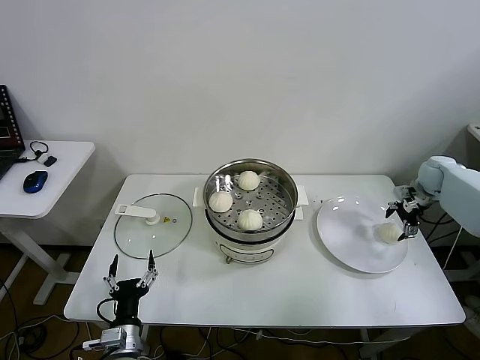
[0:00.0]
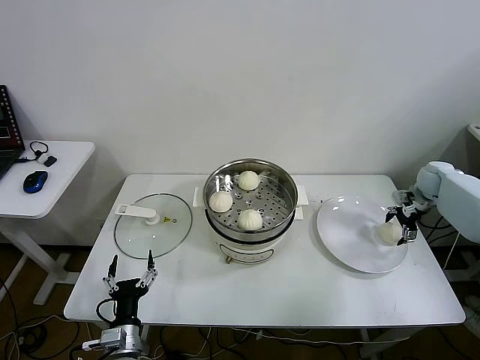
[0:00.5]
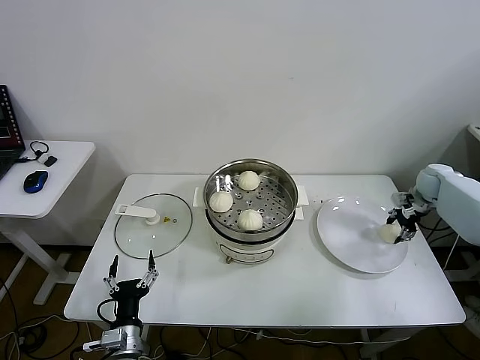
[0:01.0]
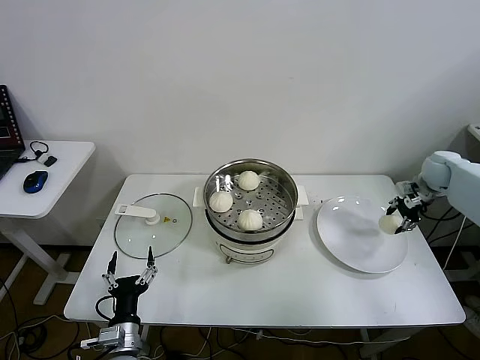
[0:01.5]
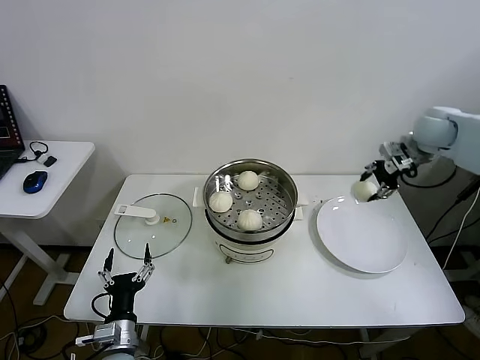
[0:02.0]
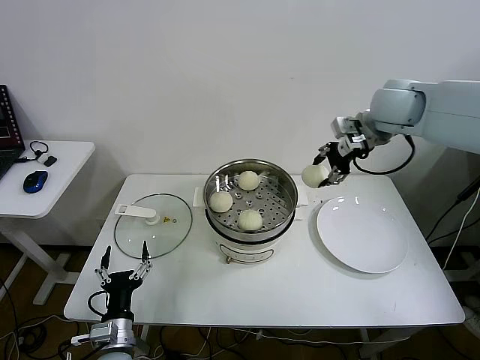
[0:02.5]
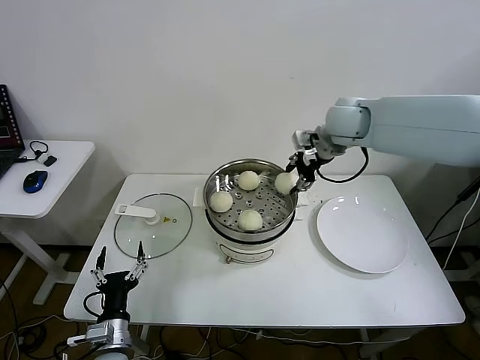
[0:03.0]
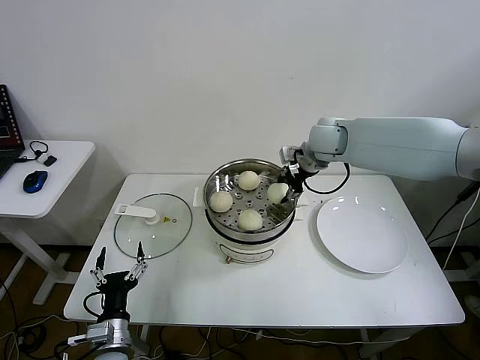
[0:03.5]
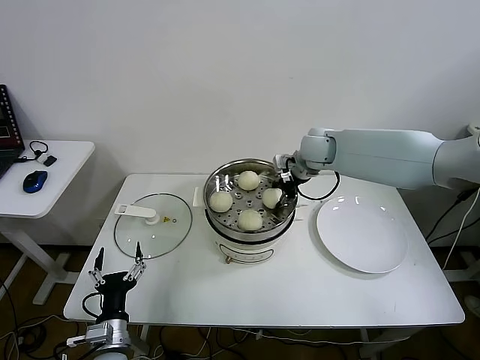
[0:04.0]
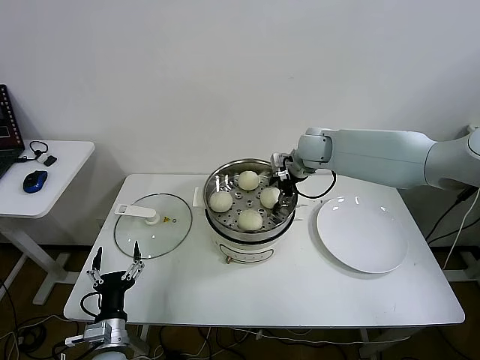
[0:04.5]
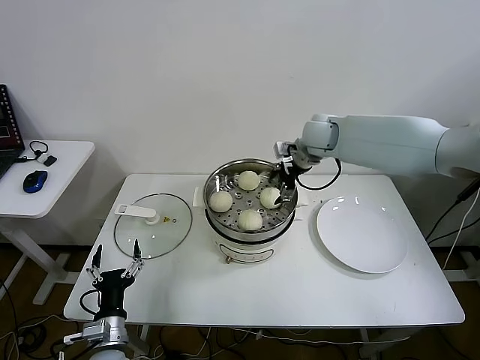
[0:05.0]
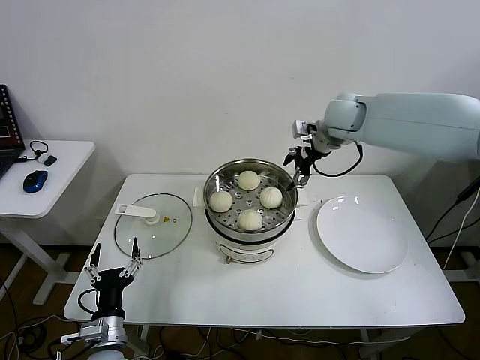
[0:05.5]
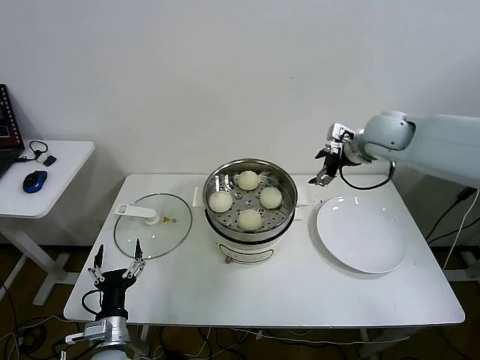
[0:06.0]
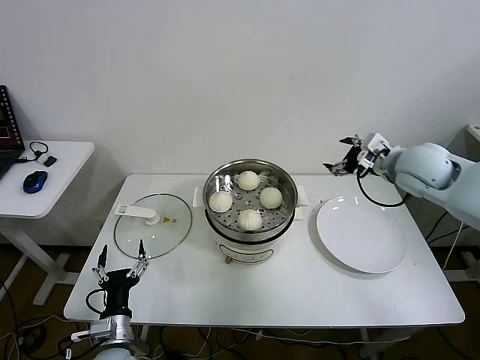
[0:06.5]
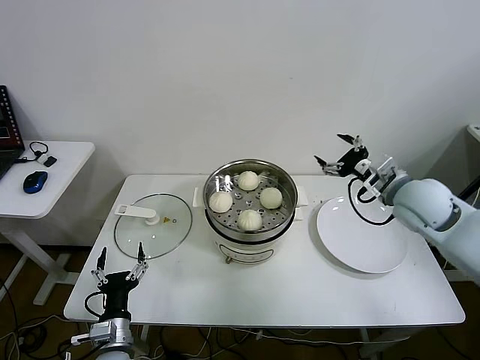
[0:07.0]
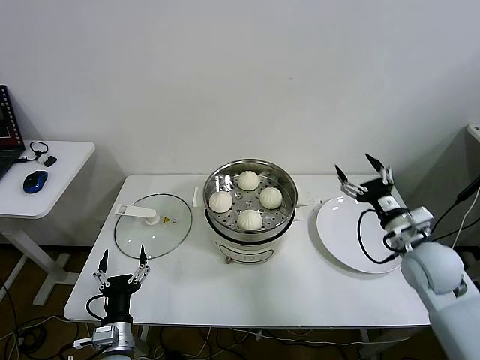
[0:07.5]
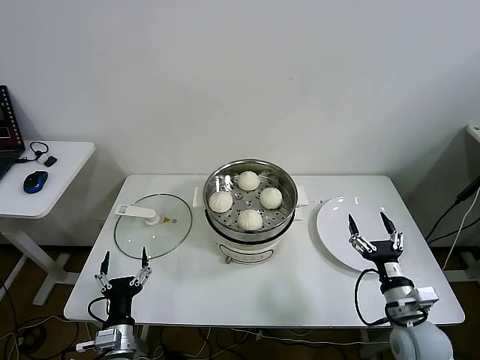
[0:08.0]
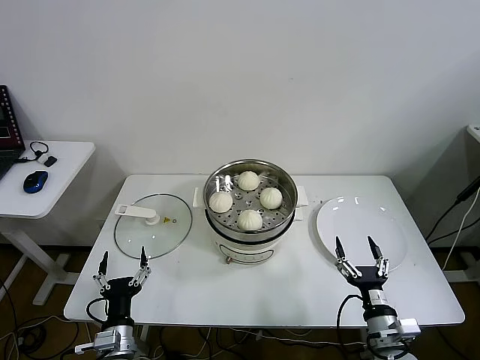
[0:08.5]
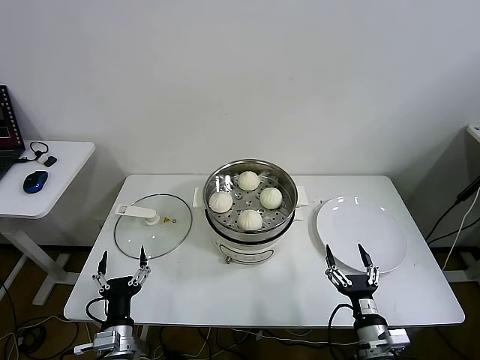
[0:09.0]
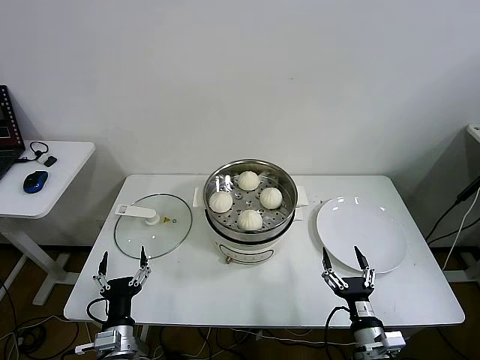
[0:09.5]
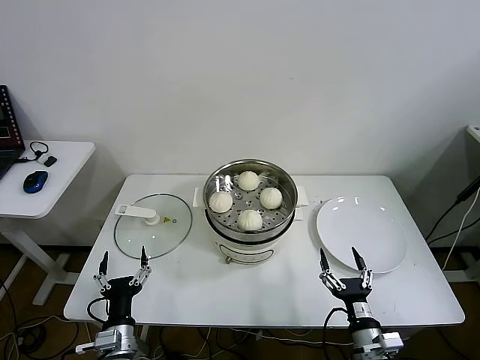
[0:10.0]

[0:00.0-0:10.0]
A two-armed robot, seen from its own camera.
Step, 0:01.0 to 0:04.5: Place the baozi on the steamer with right gripper.
0:00.0 to 0:02.0: The right gripper heads upward and to the left, covering approximately 20 cm, and closes.
0:02.0 to 0:04.0: The right gripper heads to the left, covering about 25 cm.
0:04.0 to 0:06.0: The right gripper shifts some 15 cm to the right and upward, and opens its fingers.
0:06.0 to 0:08.0: The right gripper goes roughly 40 cm backward and downward.
0:08.0 to 0:10.0: The right gripper shifts some 10 cm to the left, backward and downward.

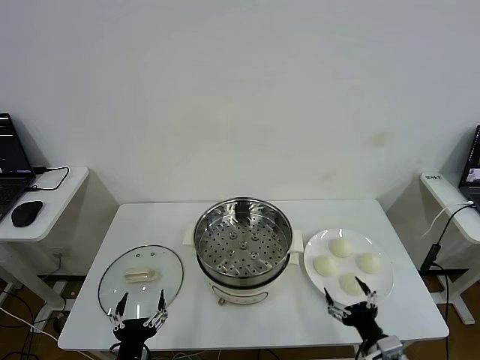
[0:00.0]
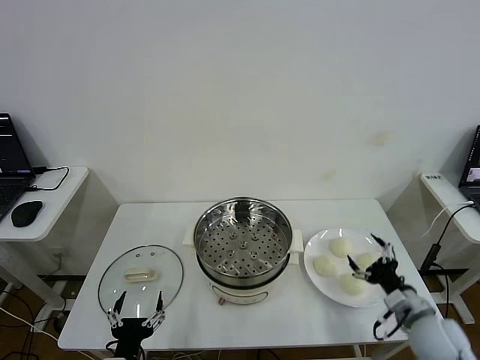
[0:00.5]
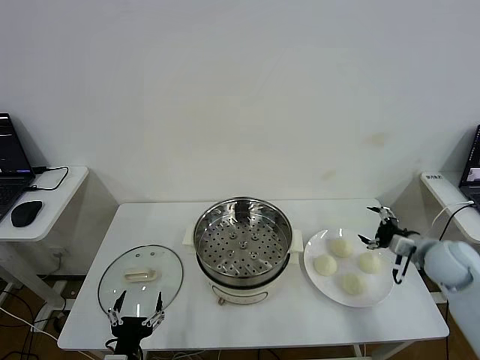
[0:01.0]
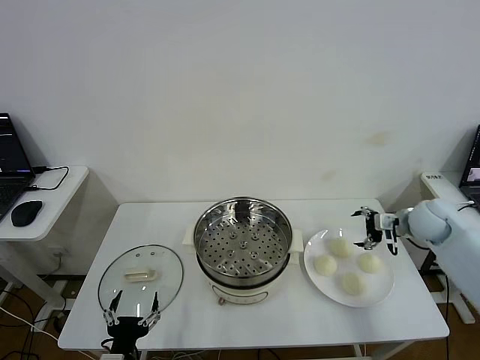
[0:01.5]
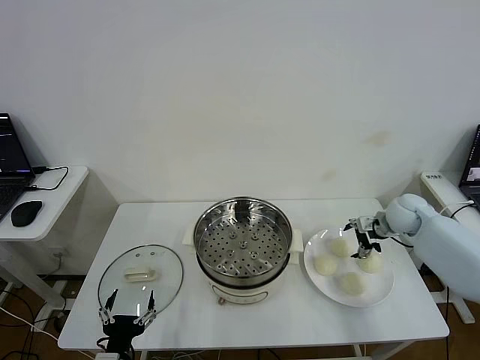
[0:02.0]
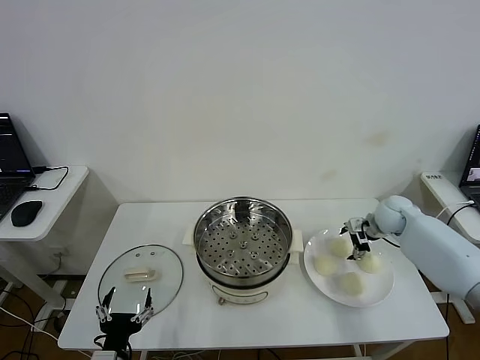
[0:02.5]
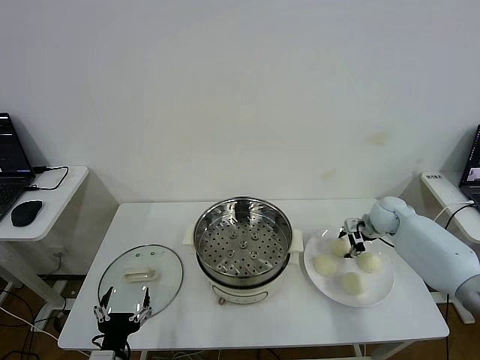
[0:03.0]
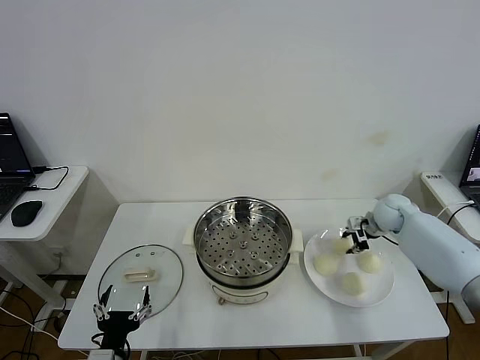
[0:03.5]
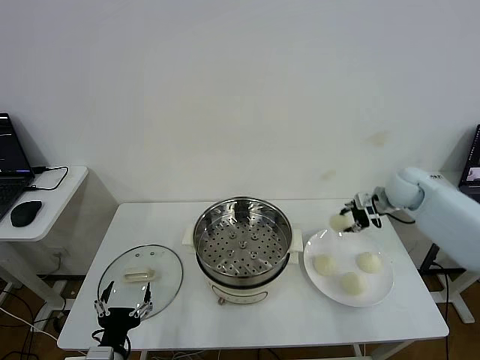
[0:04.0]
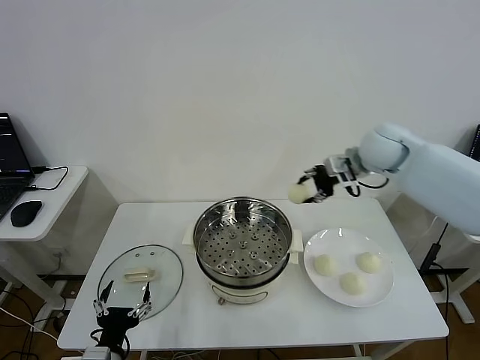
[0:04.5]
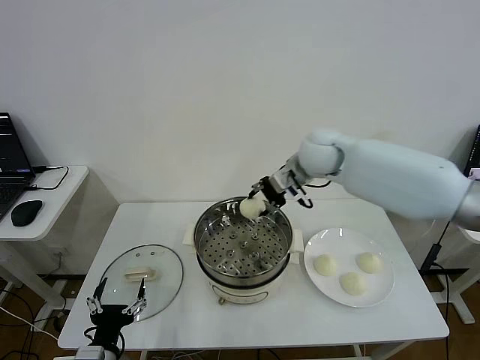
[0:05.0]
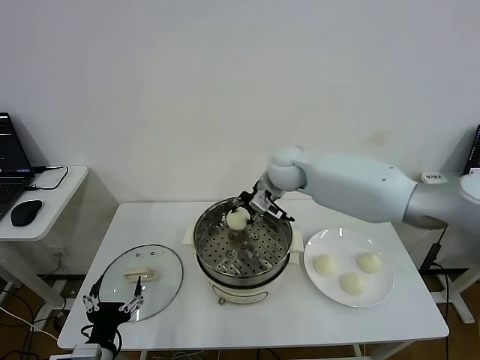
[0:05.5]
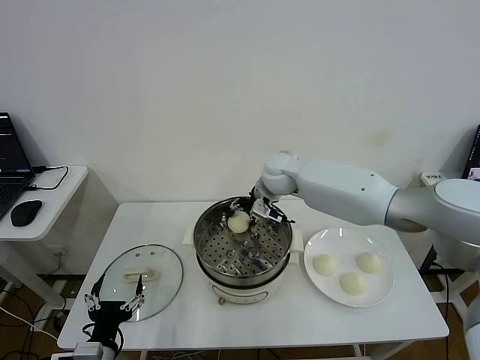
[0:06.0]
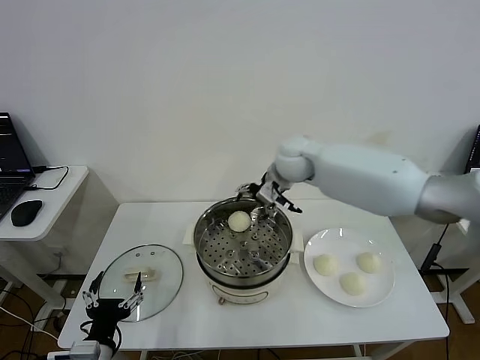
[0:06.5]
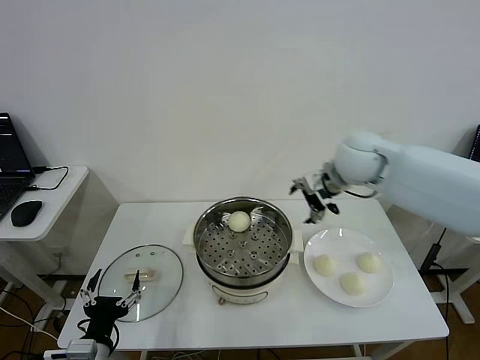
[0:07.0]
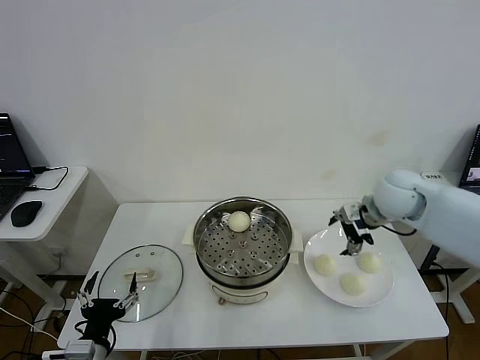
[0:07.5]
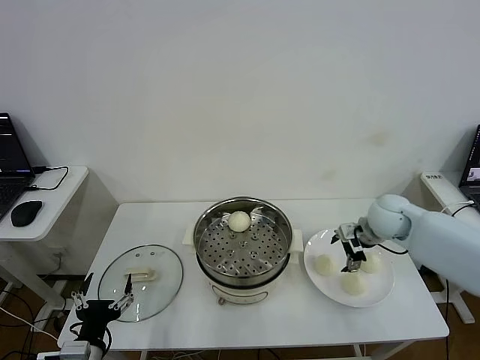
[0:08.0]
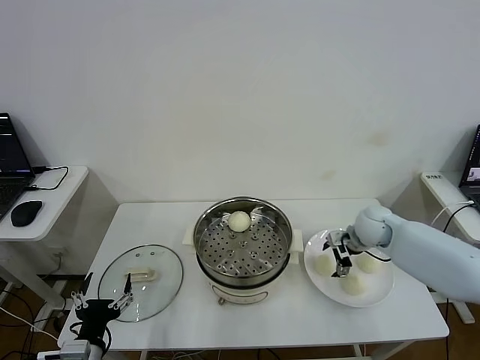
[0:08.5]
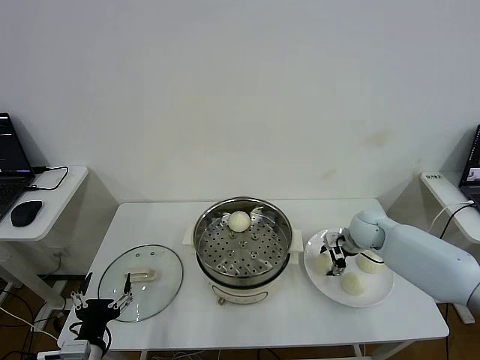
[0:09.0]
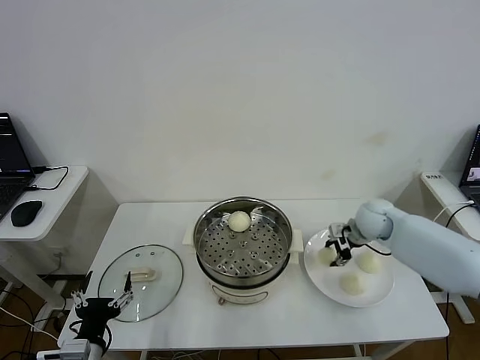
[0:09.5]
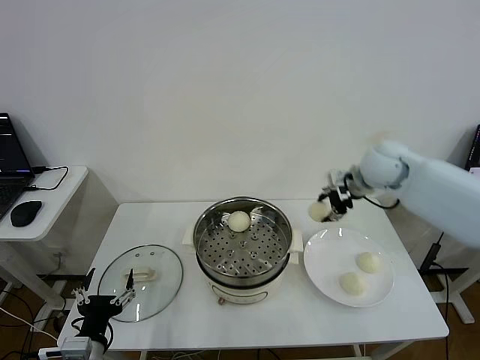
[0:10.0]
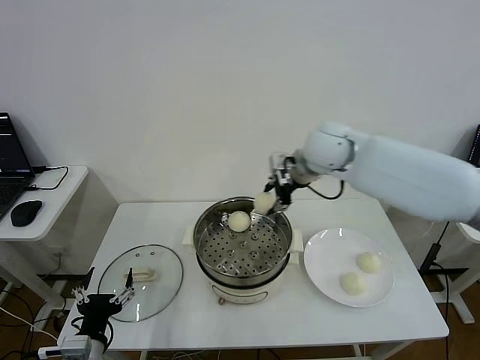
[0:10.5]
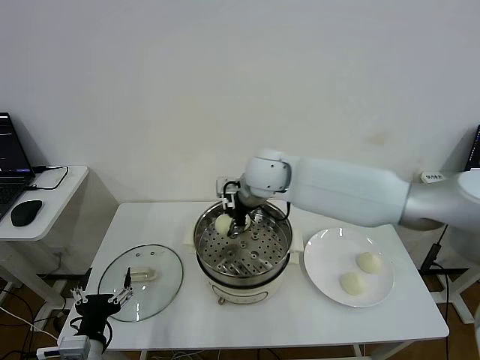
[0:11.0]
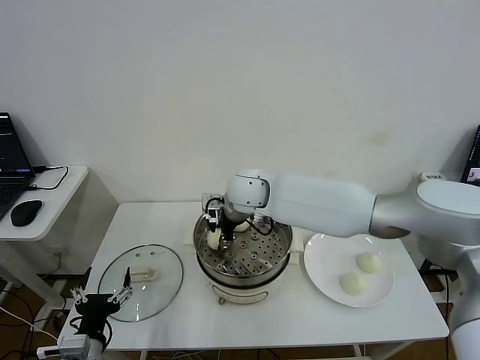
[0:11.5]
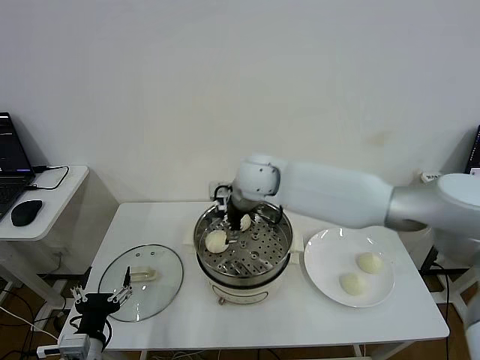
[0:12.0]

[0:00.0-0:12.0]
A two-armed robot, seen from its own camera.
Step, 0:00.0 to 0:03.0: Grasp the baozi in the plate with right gripper.
Step, 0:03.5 to 0:06.0: Place the baozi on the steamer with right gripper.
Step, 0:06.5 to 0:09.0: Grasp the baozi in the plate with right gripper.
Step, 0:09.5 to 0:11.5: Place the baozi on the steamer with right gripper.
0:02.0 to 0:04.0: The right gripper travels upward by about 5 cm, and closes up.
0:04.0 to 0:06.0: The right gripper travels to the left by roughly 30 cm.
0:06.0 to 0:08.0: The right gripper shifts roughly 25 cm to the right, and opens up.
0:08.0 to 0:10.0: The right gripper heads upward, covering roughly 10 cm, and closes up.
0:10.0 to 0:12.0: The right gripper shifts about 25 cm to the left, and opens up.

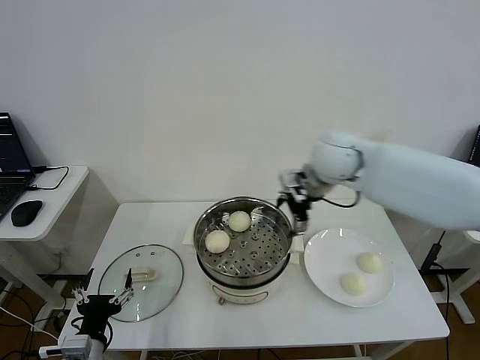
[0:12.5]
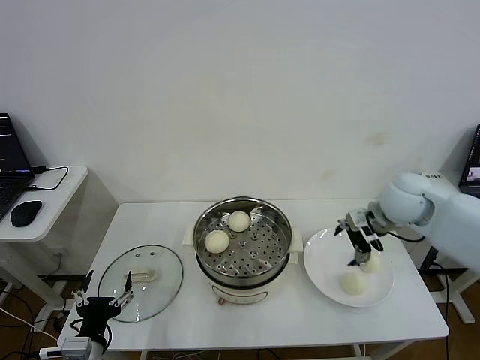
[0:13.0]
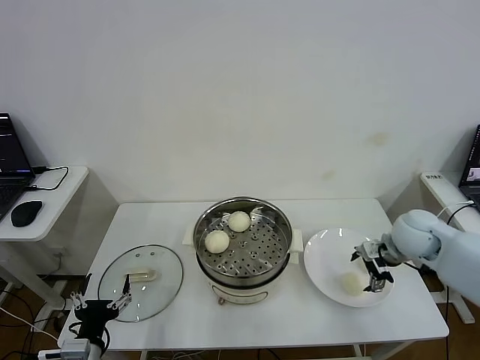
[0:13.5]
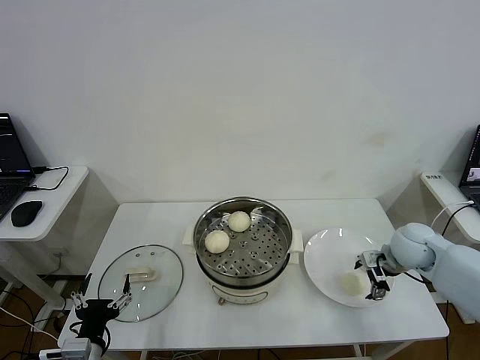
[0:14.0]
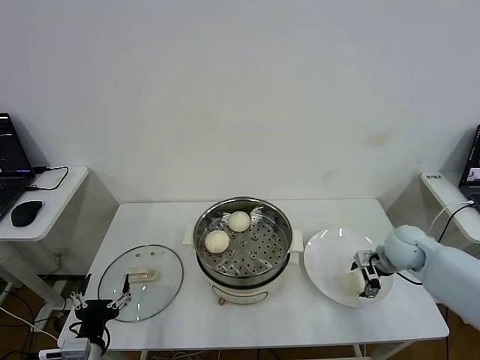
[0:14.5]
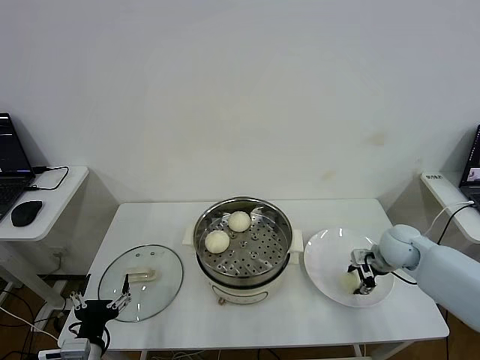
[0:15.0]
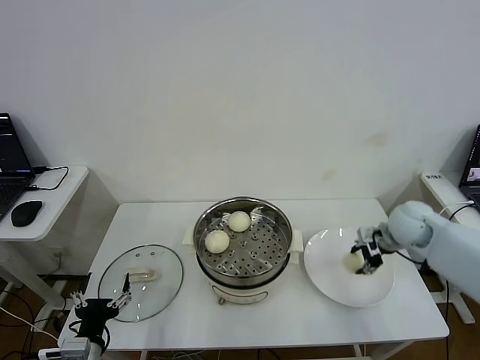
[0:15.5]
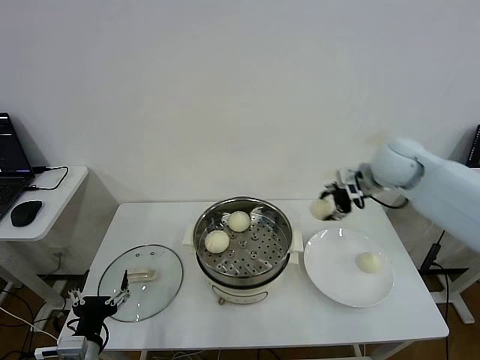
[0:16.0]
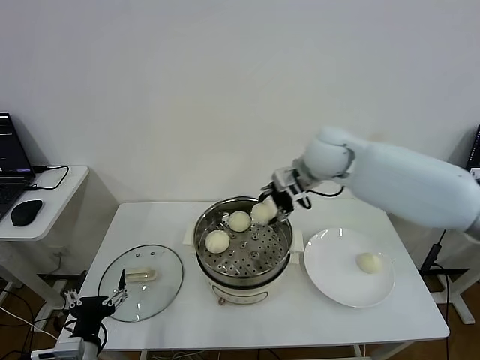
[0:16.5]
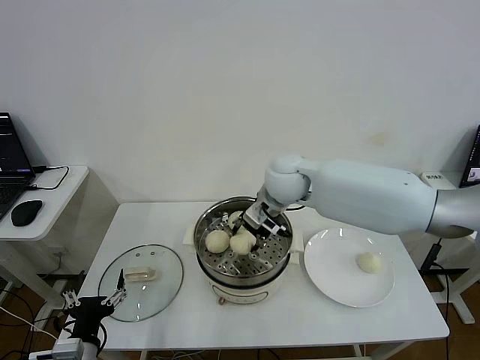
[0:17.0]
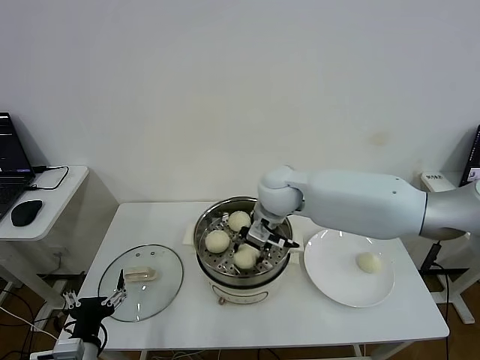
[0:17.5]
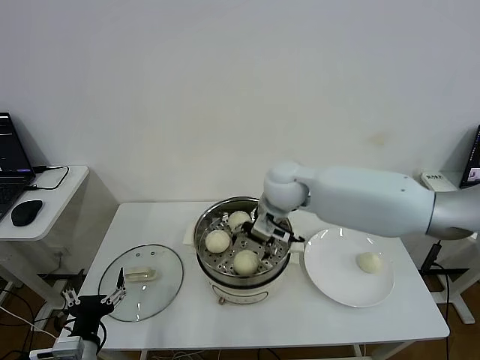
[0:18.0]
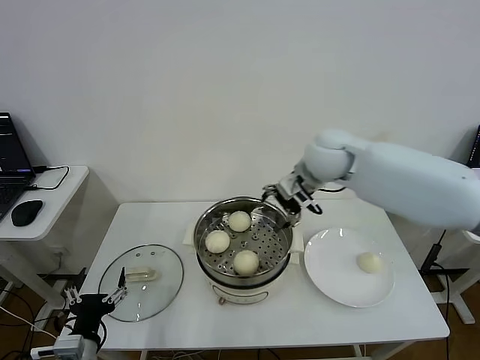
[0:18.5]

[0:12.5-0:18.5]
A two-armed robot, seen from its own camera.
Step, 0:12.5 to 0:14.5: Grasp the baozi in the plate with right gripper.
Step, 0:15.0 to 0:17.5: Place the baozi on the steamer with right gripper.
0:12.5 to 0:14.5: The right gripper moves to the right and downward, about 30 cm.
0:14.5 to 0:16.5: The right gripper is displaced upward and to the left by roughly 30 cm, and closes up.
0:16.5 to 0:18.5: The right gripper travels to the left and back again, some 10 cm each way, and opens its fingers.
